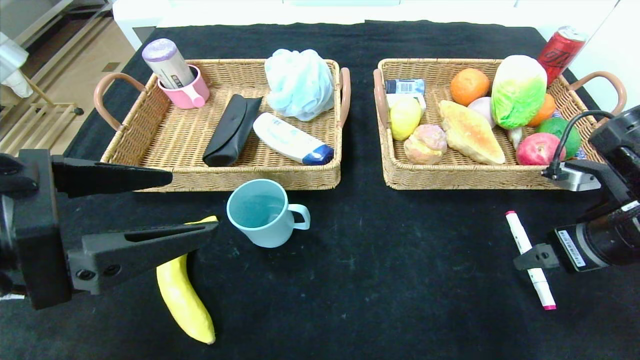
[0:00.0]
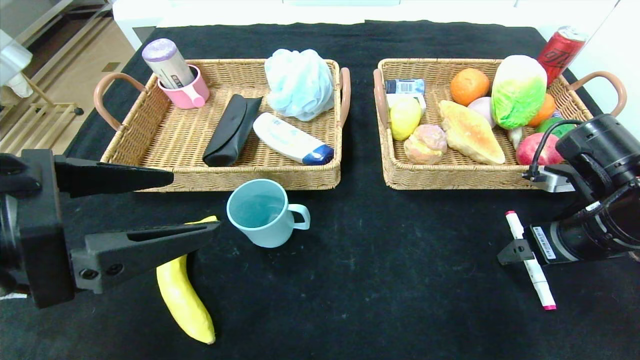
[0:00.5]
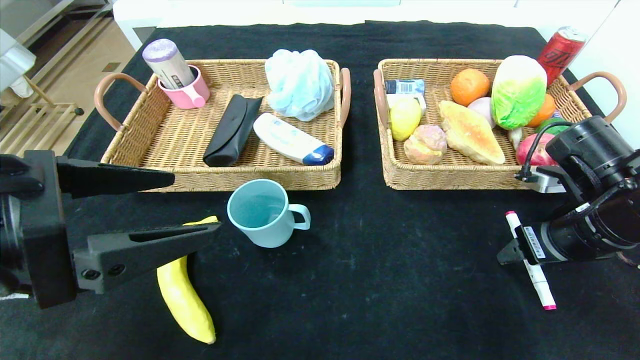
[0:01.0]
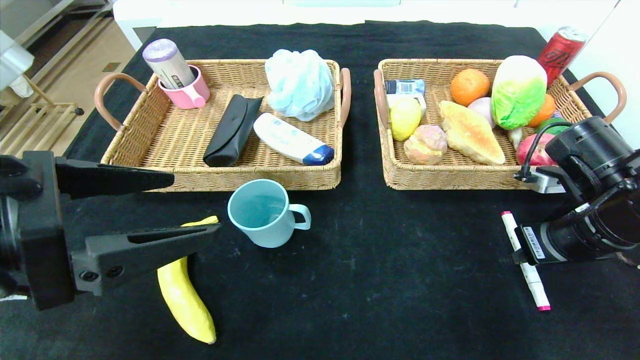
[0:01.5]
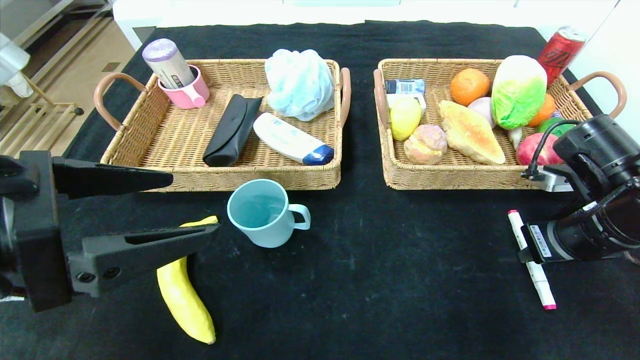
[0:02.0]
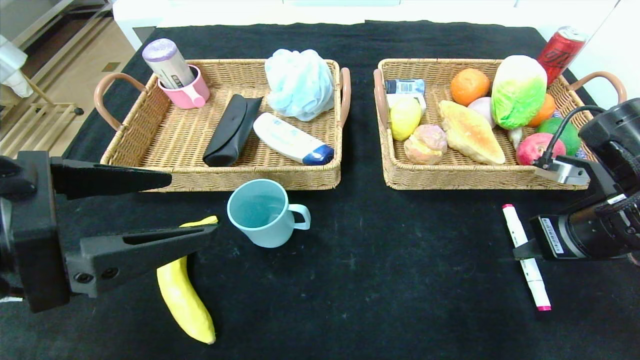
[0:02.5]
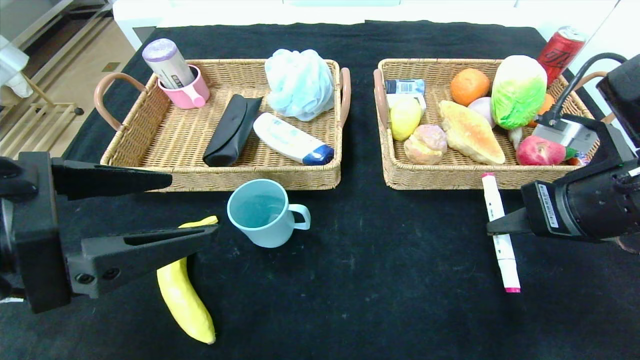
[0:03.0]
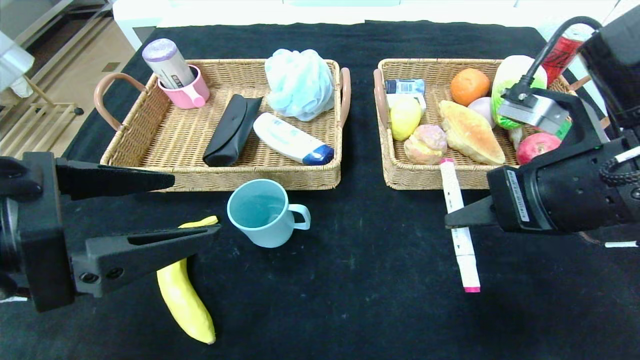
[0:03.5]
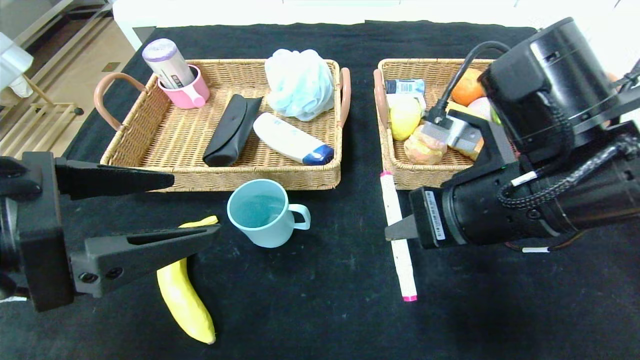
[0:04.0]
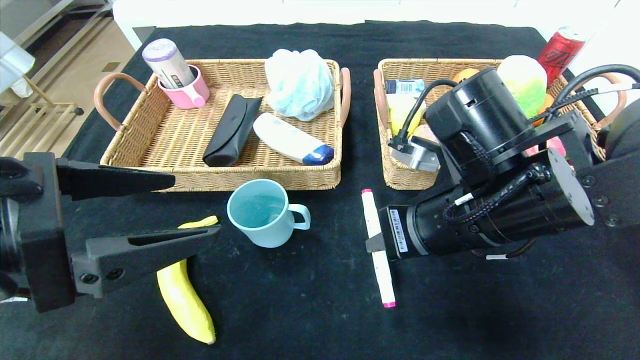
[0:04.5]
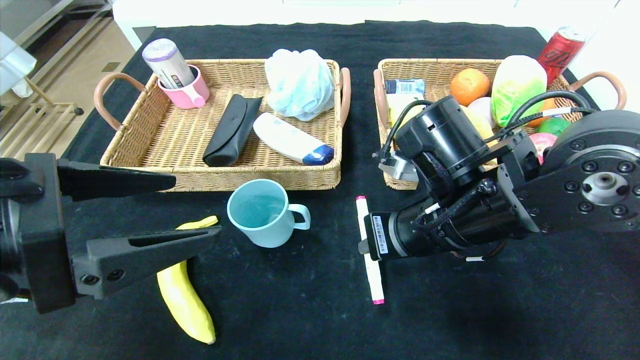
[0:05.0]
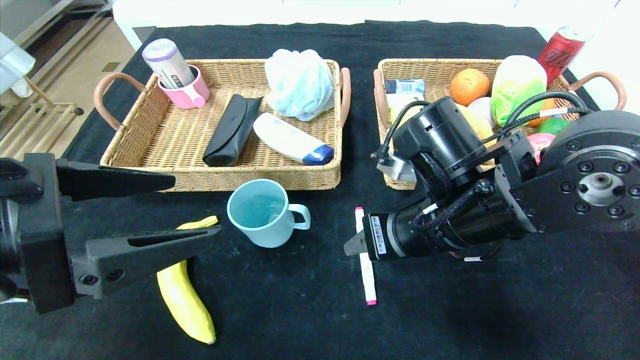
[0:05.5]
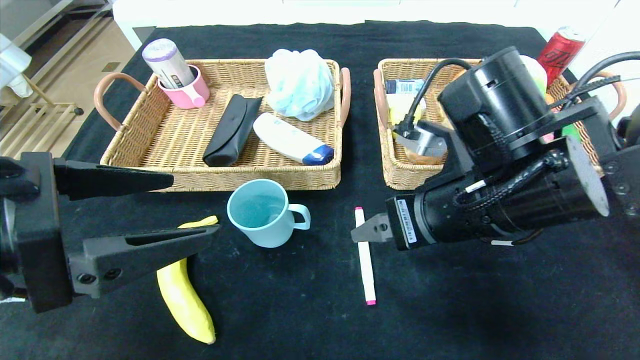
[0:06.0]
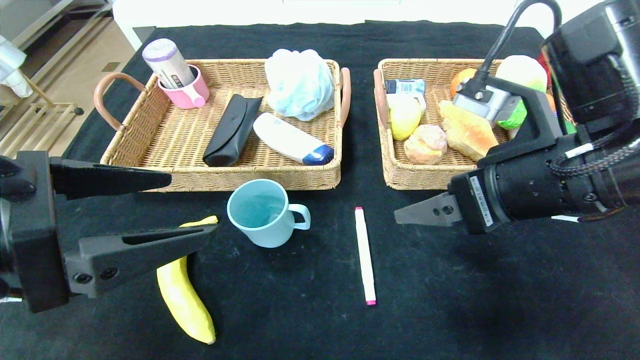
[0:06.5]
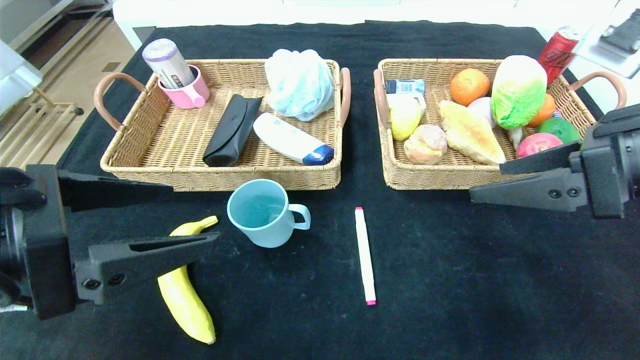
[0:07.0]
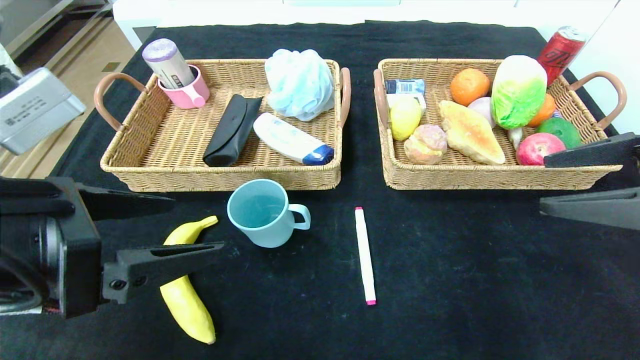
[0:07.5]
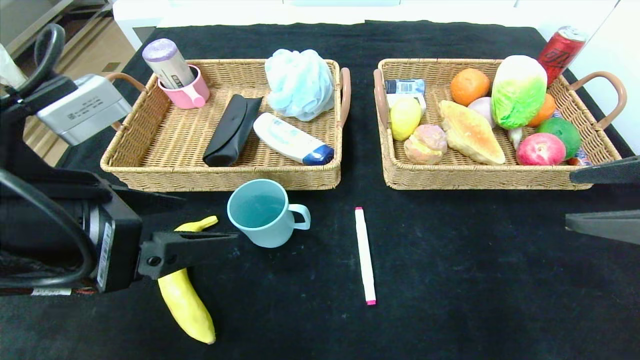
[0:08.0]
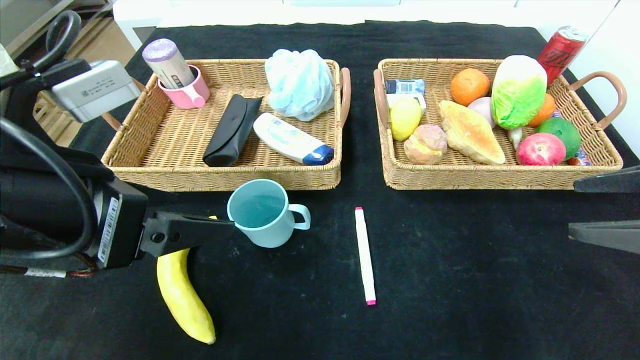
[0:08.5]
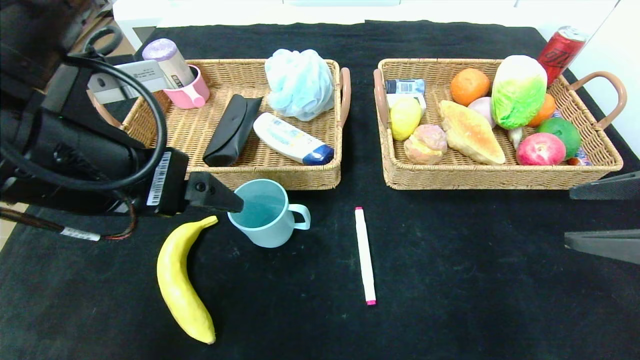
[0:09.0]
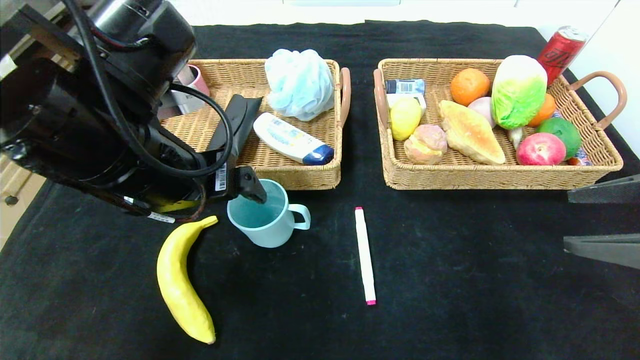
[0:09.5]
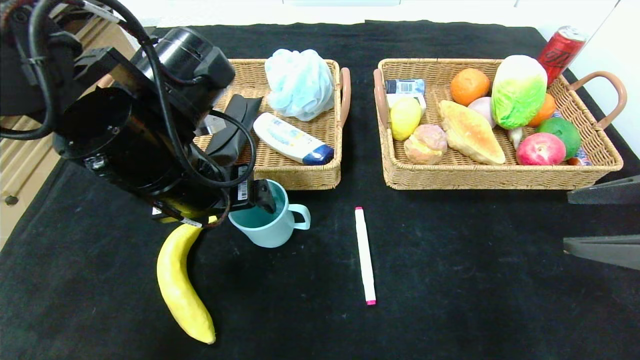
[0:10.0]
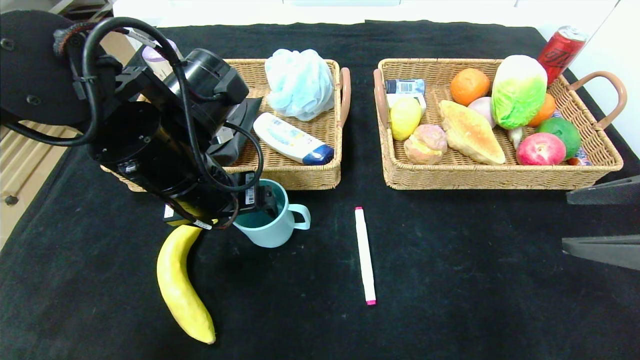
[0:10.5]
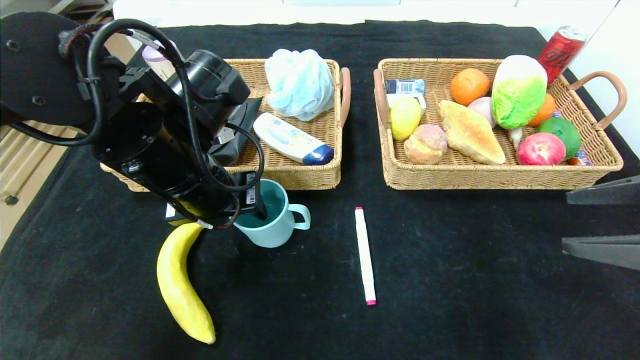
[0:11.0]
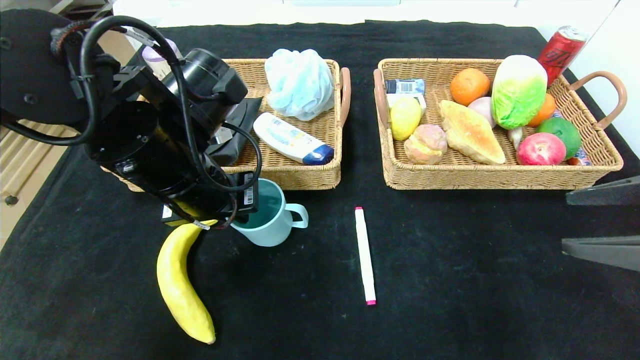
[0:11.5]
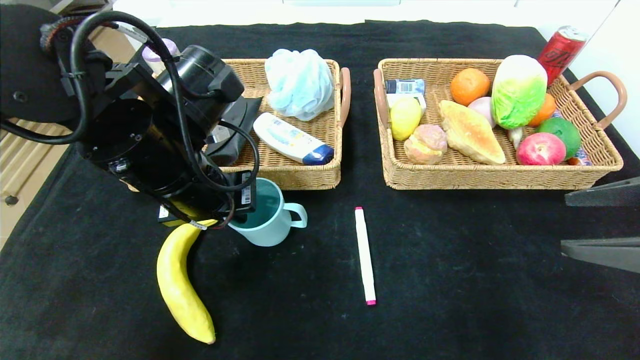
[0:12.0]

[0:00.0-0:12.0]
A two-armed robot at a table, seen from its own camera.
Step, 0:00.0 to 0:06.5: Place the pink marker in the center of the table.
0:00.0 to 0:02.0: The right gripper closes up.
0:02.0 to 0:04.0: The right gripper heads to the left and upward, covering roughly 15 cm.
0:04.0 to 0:06.0: The right gripper opens.
0:06.0 to 0:08.0: The right gripper shifts some 20 cm to the right.
0:08.0 to 0:10.0: The left gripper shifts some 10 cm forward and to the right.
0:10.0 to 0:12.0: The left gripper closes its fingers.

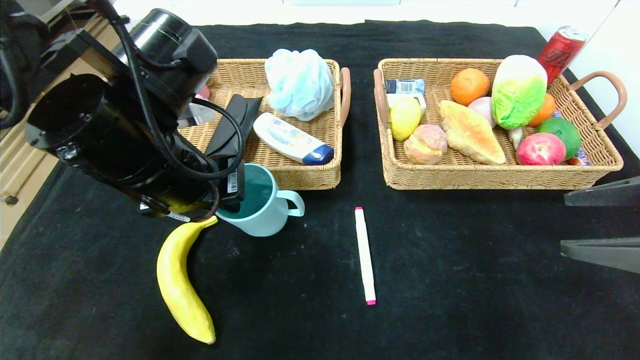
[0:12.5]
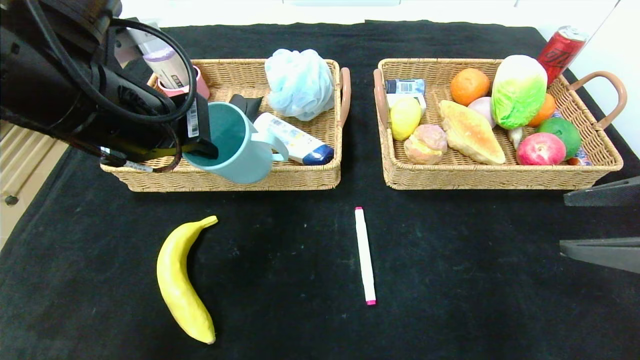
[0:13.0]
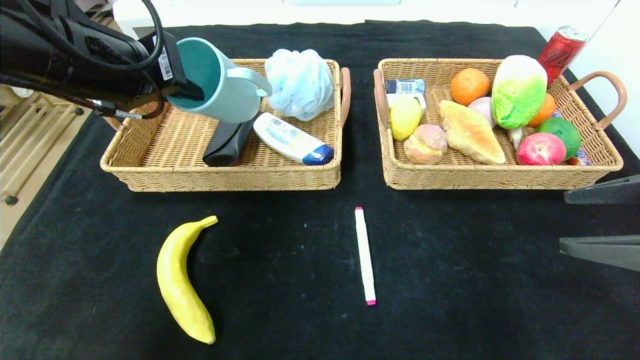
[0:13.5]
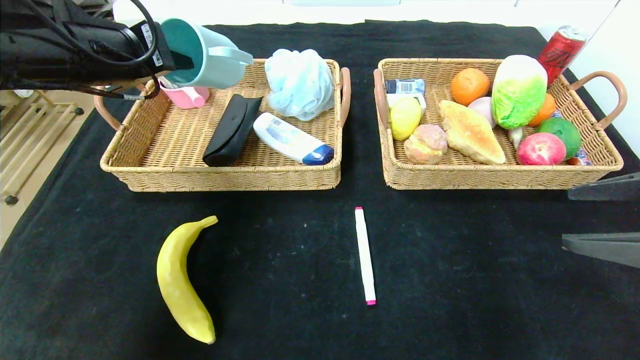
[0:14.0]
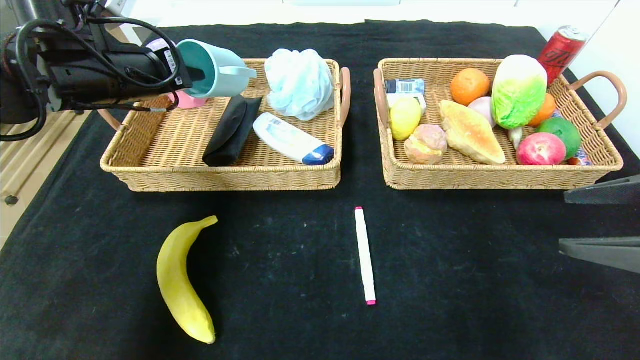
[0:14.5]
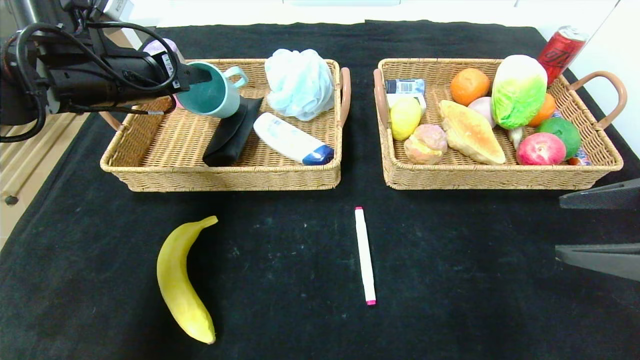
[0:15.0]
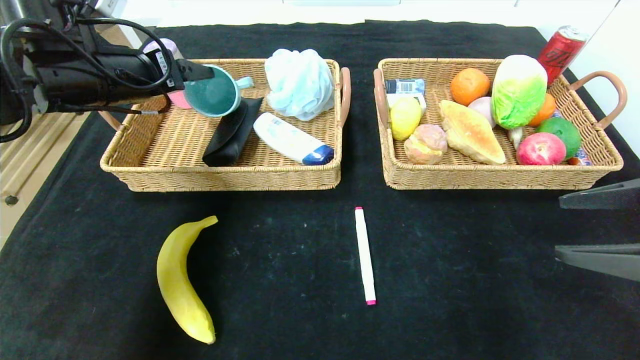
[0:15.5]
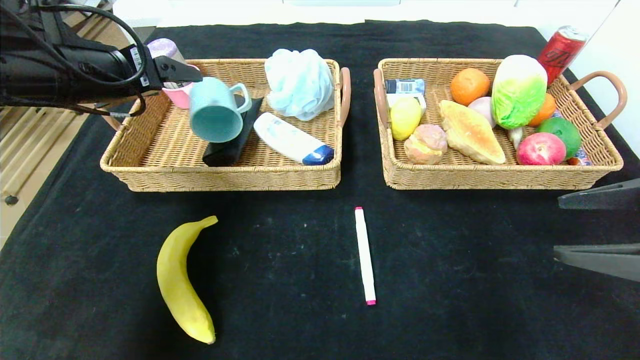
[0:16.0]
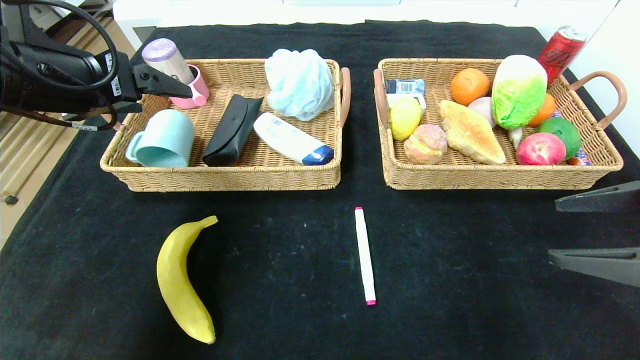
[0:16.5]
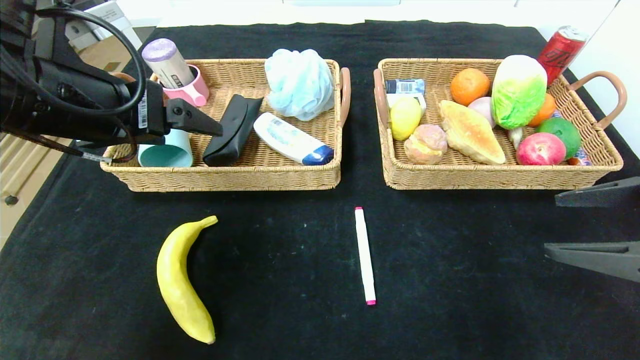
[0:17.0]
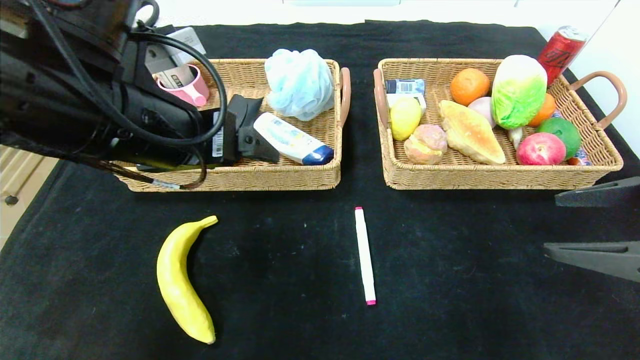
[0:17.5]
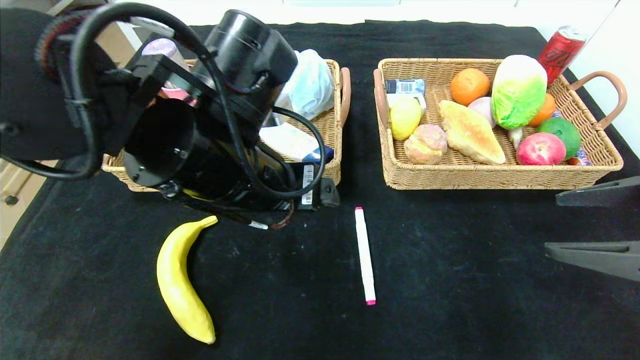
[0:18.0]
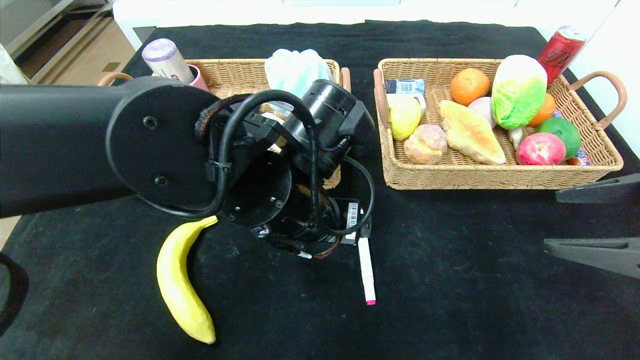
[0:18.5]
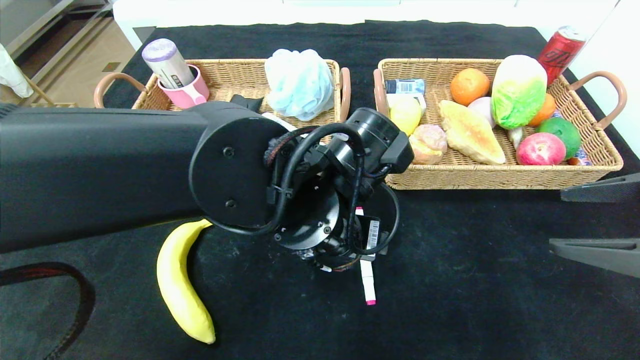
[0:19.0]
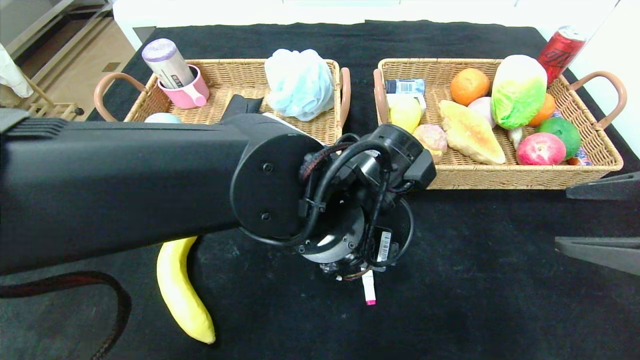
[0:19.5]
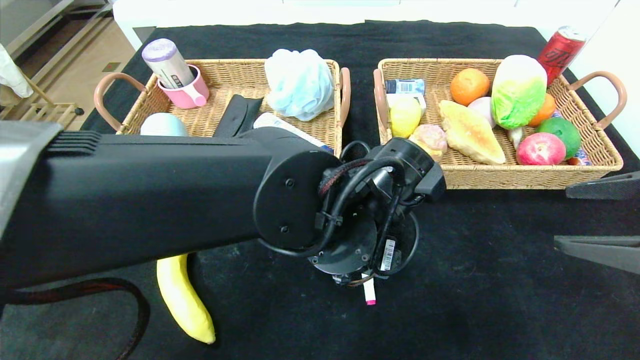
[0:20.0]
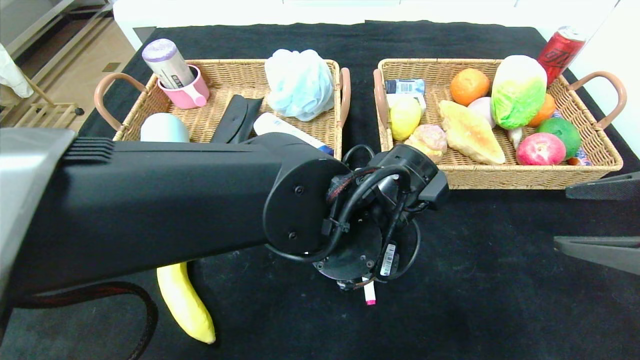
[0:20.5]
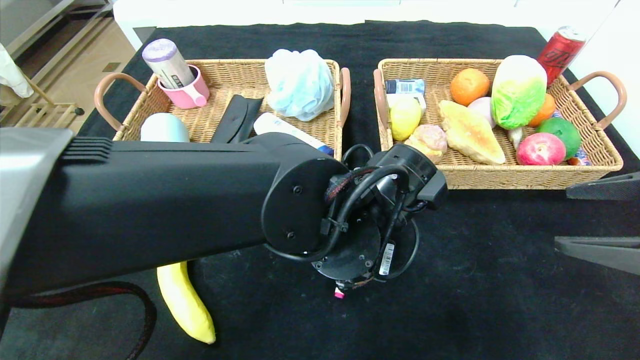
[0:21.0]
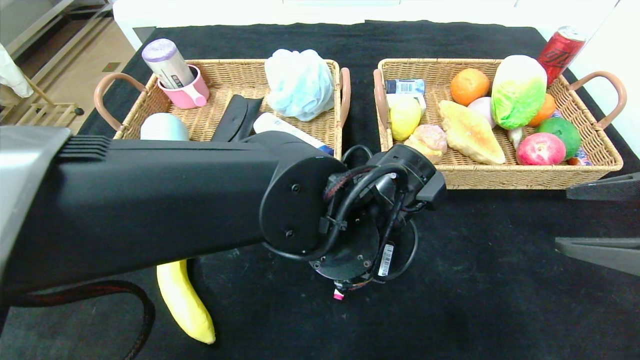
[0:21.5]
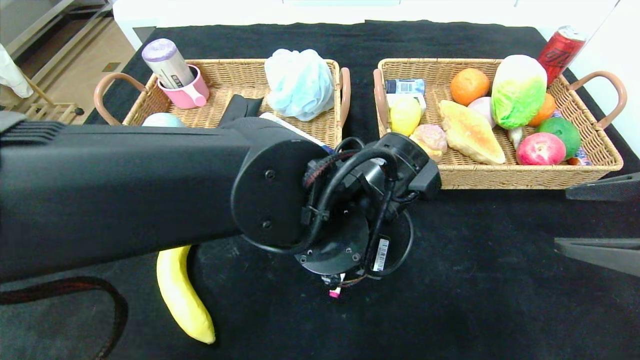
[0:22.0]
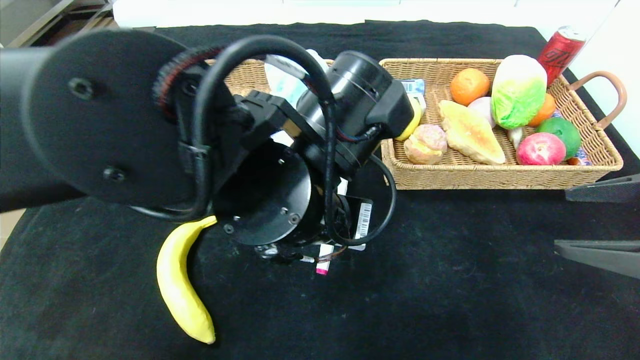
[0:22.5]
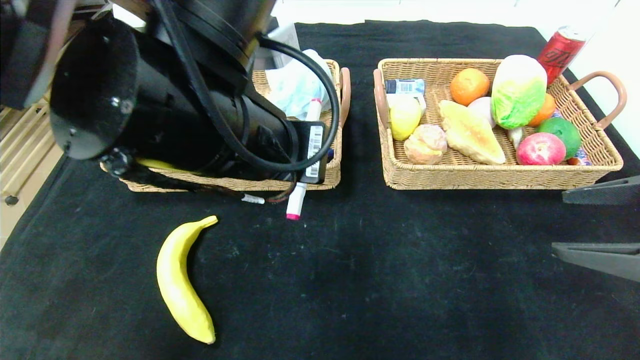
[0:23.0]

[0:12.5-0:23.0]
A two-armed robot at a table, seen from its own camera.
Step, 0:12.5 to 0:16.5: Grasp the blue cup and put it in the left basket.
0:12.5 to 0:14.5: The left gripper travels forward and to the left by some 15 cm.
0:14.5 to 0:16.5: The left gripper is displaced backward by roughly 10 cm, and opens up.
0:16.5 to 0:19.0: The left gripper heads to the right and downward, covering some 30 cm.
0:19.0 to 0:21.0: The left gripper closes.
0:21.0 to 0:23.0: The left gripper goes approximately 15 cm upward and to the left.
